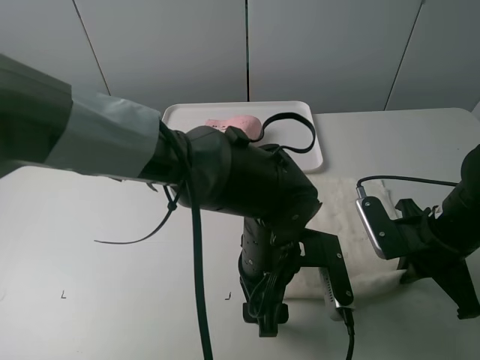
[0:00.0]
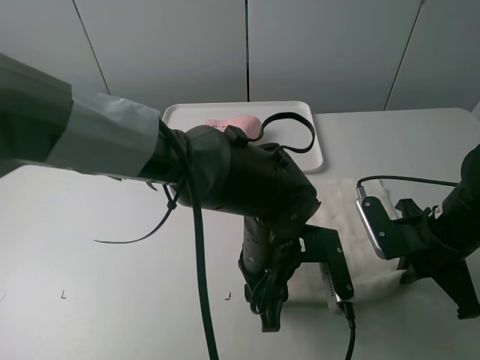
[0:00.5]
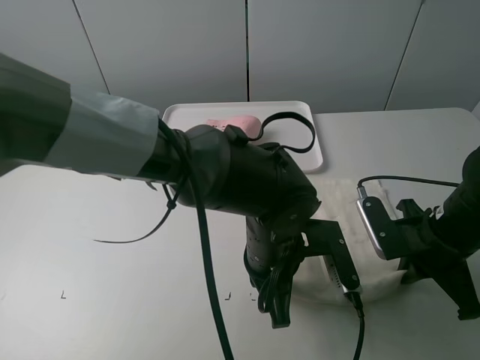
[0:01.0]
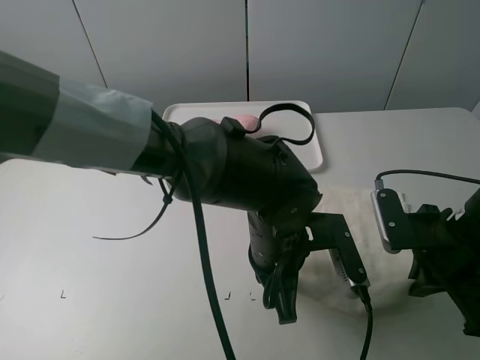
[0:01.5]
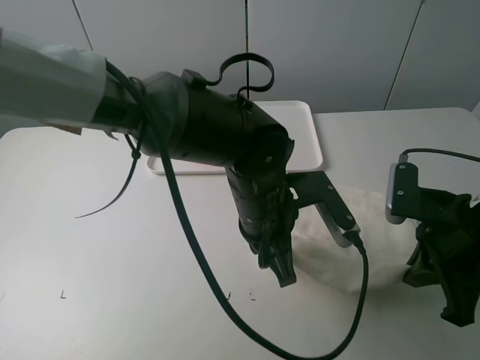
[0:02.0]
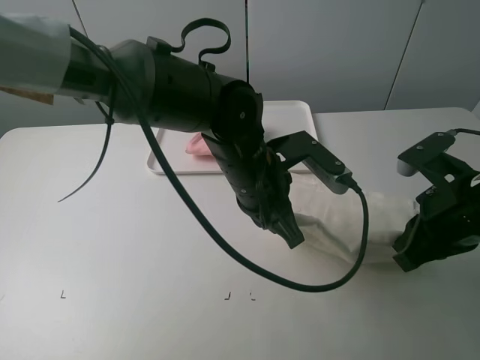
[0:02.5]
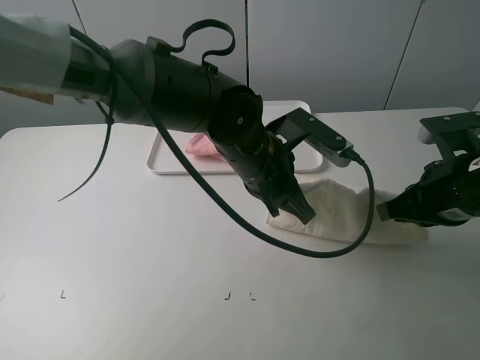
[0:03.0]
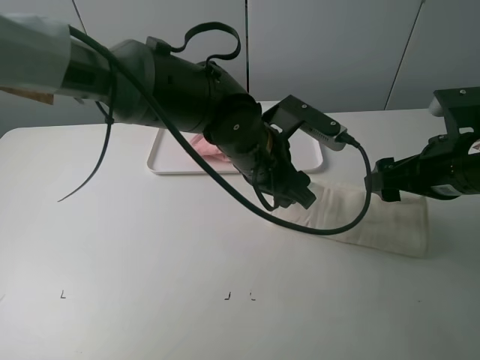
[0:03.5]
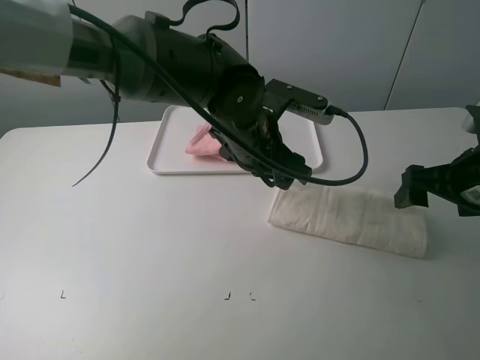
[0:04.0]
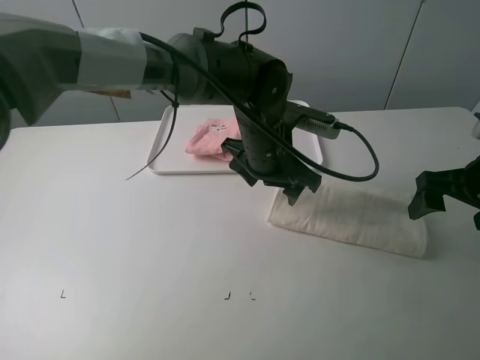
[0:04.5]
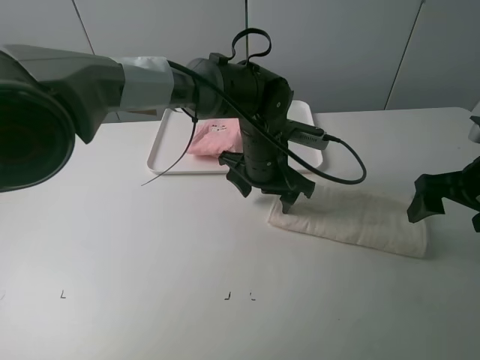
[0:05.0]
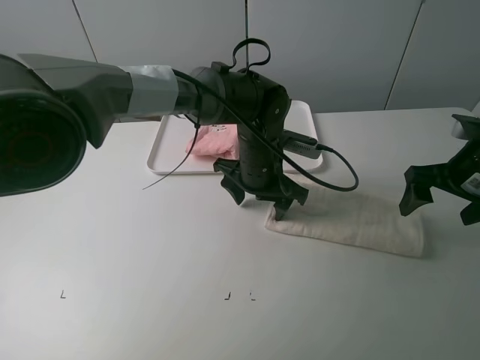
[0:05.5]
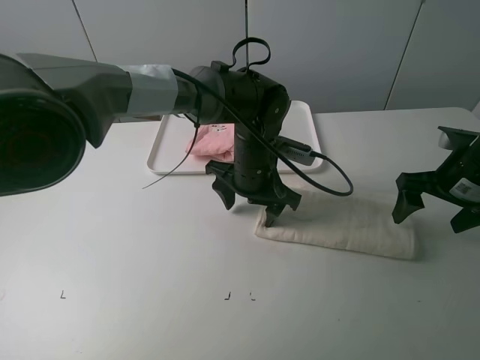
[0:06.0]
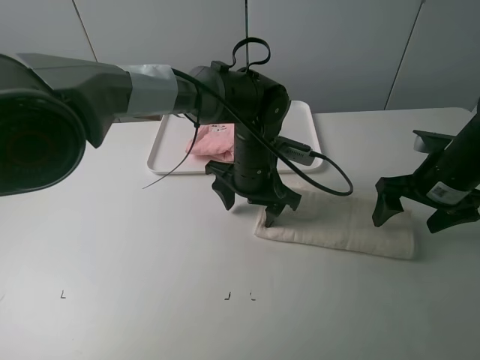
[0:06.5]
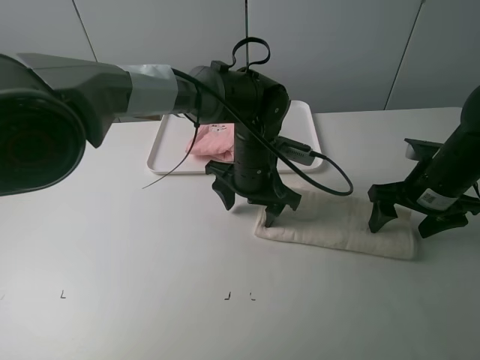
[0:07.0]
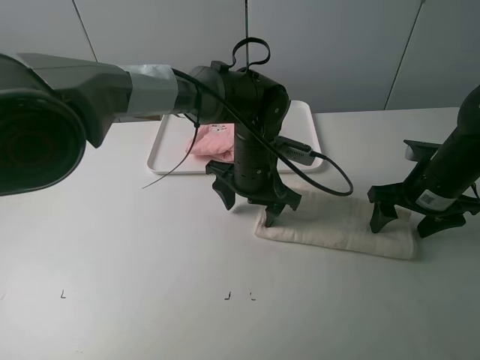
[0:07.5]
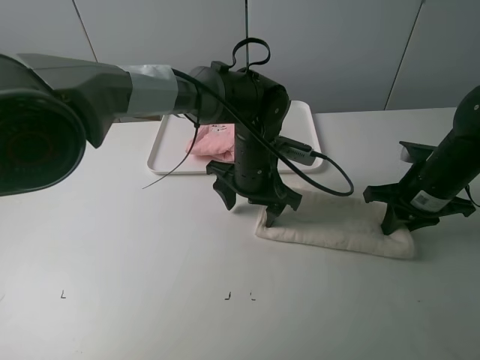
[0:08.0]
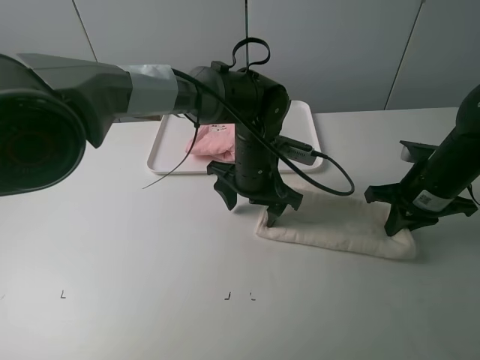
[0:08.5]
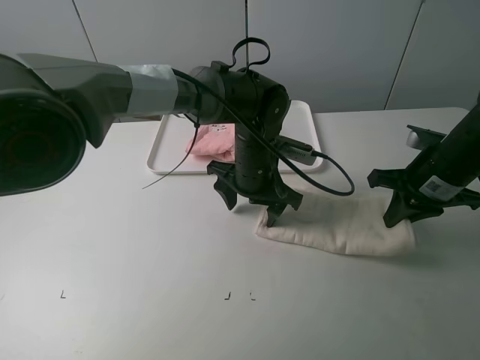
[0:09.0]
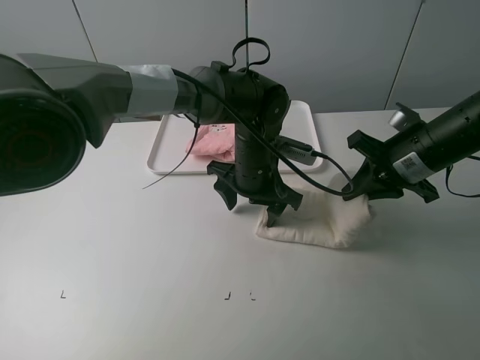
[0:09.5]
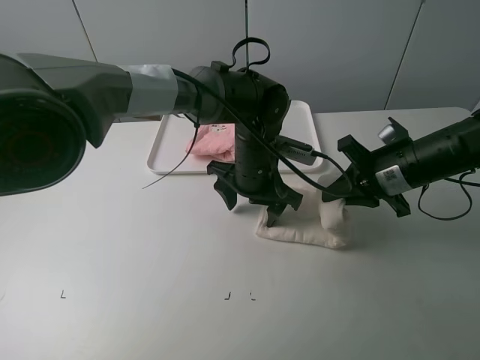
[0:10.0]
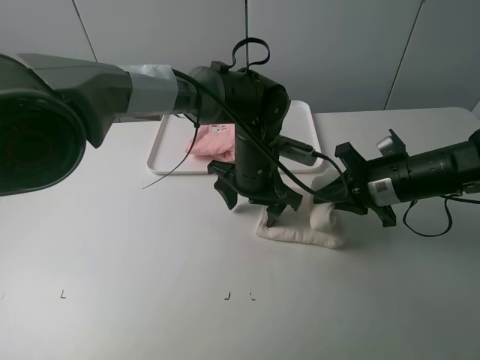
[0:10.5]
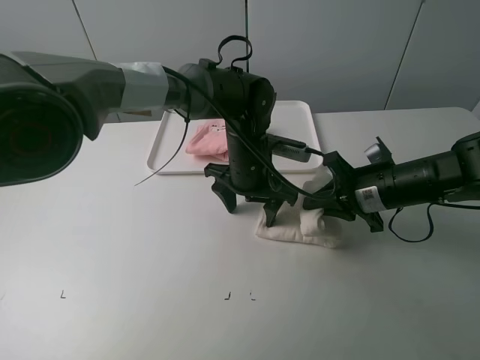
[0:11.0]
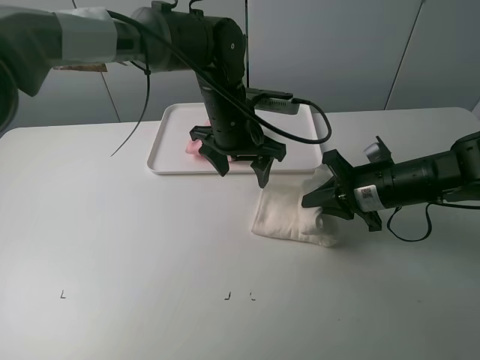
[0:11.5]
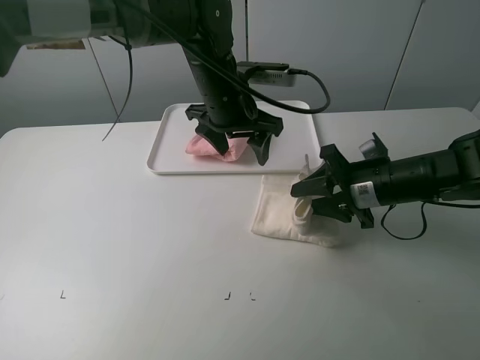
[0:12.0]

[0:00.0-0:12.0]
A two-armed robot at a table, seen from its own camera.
Task of the whole recording: fold one of the towels by two grippers and place it on the tray,then fold another towel by two grippers and place it on the folded towel.
Step, 0:01.0 to 0:03.5: Fold the white towel upwards with the left gripper.
Step, 0:04.0 to 0:05.0: Press the white towel with the left gripper.
Step, 0:05.5 to 0:08.0: Grasp the white towel with the right gripper.
0:00.0 to 0:02.0: The left gripper ends up some 5 cm from where it was, and closes, while the right gripper heads upward, covering roughly 5 cm.
0:02.0 to 0:04.0: The two grippers go approximately 5 cm forward. The left gripper opens. Meanwhile the right gripper opens up.
0:04.0 to 0:06.0: The right gripper changes place by about 5 cm, while the left gripper is displaced downward by roughly 5 cm.
0:06.0 to 0:08.0: The right gripper closes up.
0:08.0 to 0:10.0: The right gripper changes place by roughly 5 cm.
0:10.0 to 0:12.0: The left gripper moves upward, approximately 10 cm, while the right gripper opens.

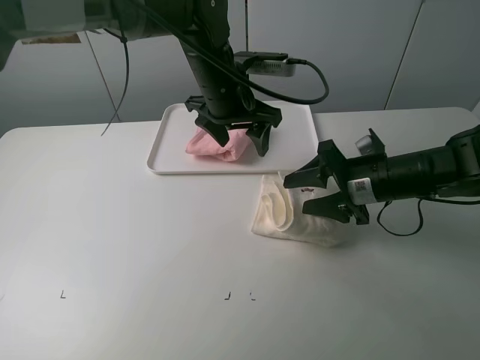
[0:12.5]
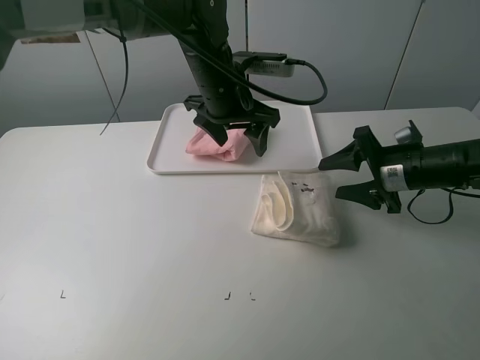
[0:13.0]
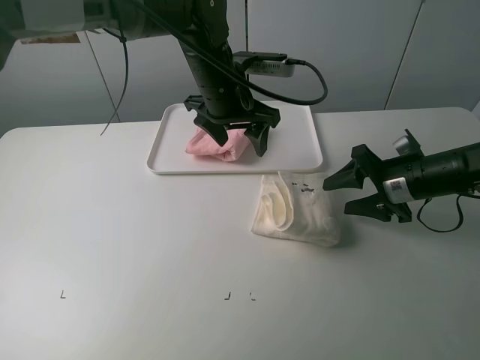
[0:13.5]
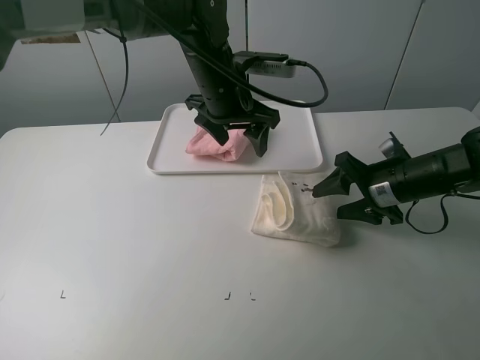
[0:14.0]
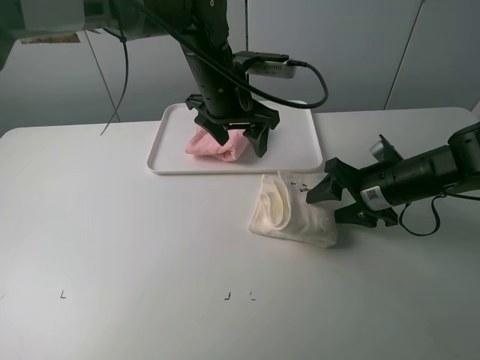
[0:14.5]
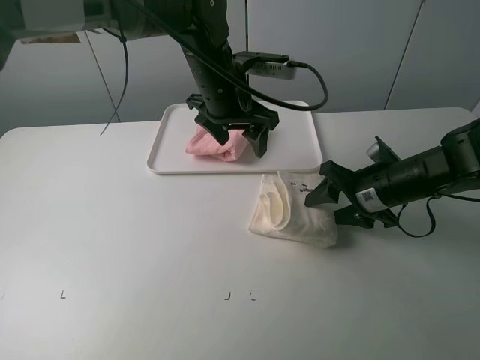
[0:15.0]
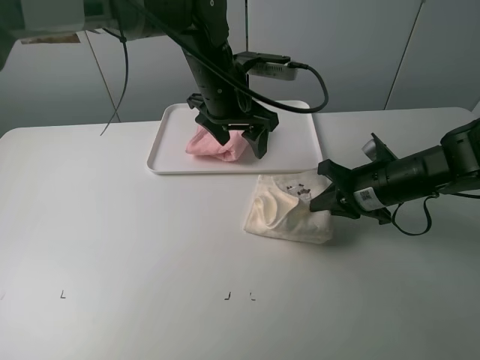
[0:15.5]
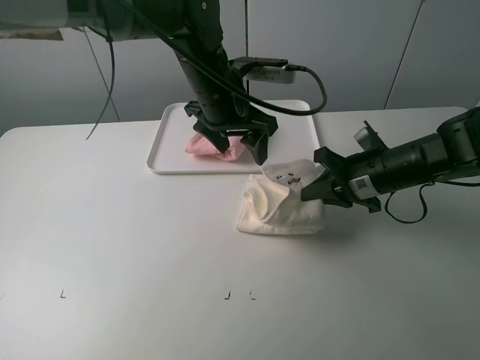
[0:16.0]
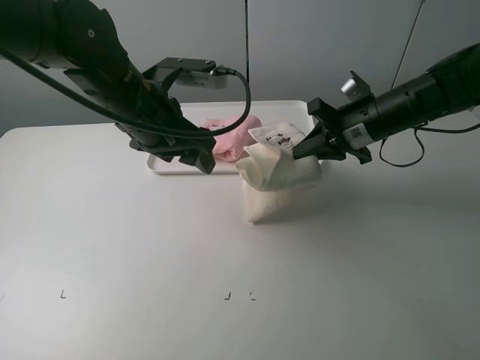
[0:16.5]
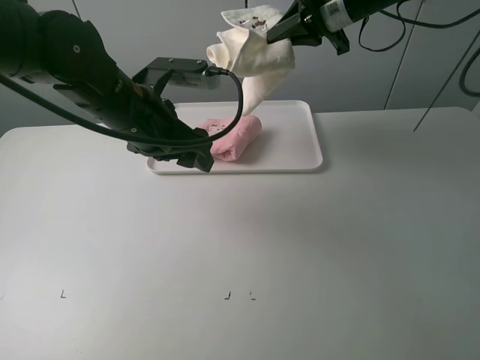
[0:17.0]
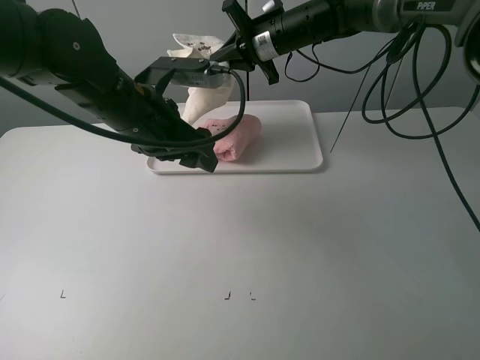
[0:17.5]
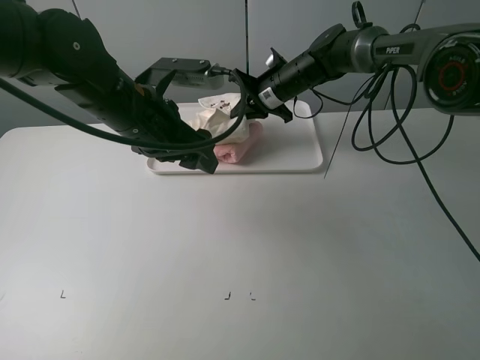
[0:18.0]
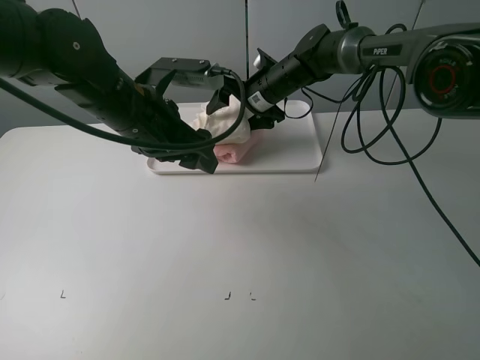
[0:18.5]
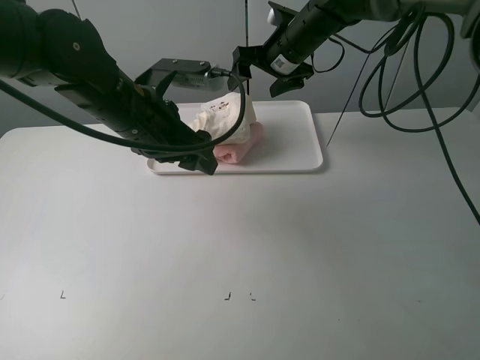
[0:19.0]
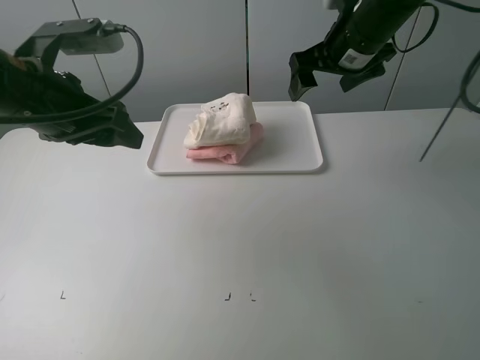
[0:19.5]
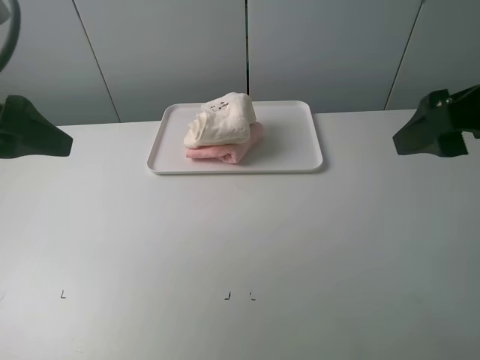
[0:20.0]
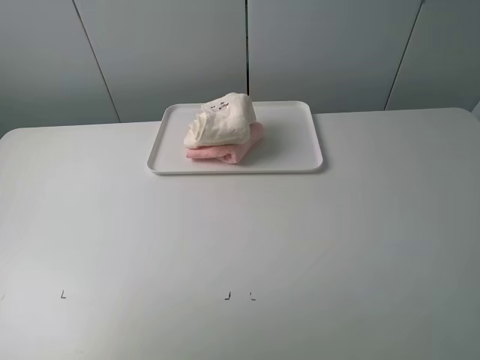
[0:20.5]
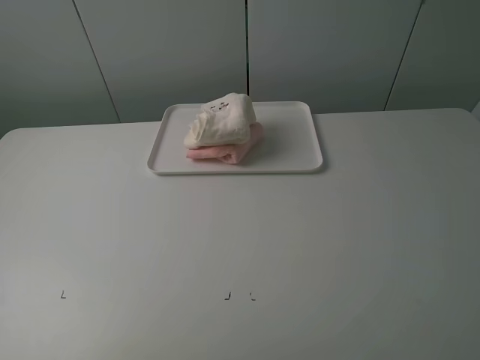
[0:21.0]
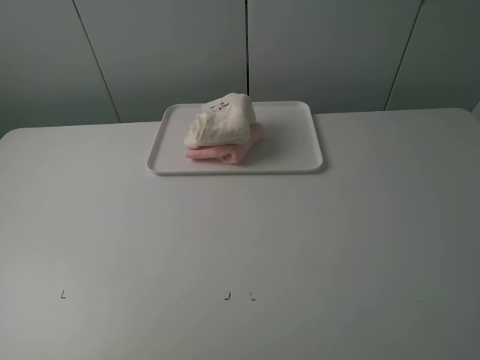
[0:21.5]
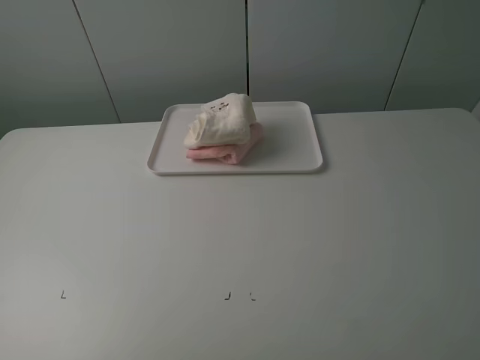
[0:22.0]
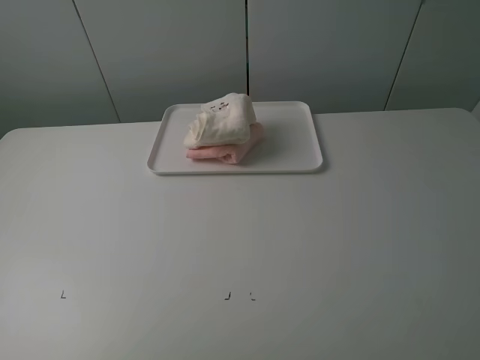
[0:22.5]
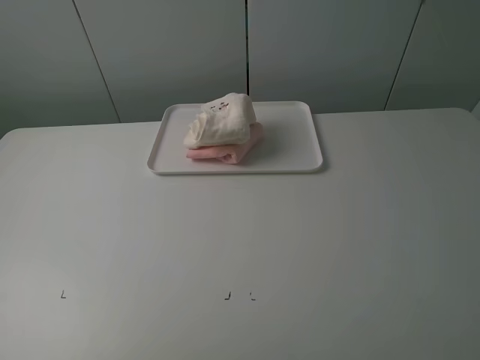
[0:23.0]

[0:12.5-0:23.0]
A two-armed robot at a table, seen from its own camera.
Task of the whole recording: fold one of the towels by two grippers and place it on the tray,then fold another towel by two grippers and place it on the folded towel.
Step, 0:13.0 to 0:15.0: Grasp the white towel with the right gripper.
Step, 0:15.5 to 0:18.5: Place the white towel on the pink towel with the right gripper.
0:12.5 to 0:14.5: The grippers make only small movements.
0:14.5 to 0:16.5: The left gripper moves to the left and backward, some 15 cm. The right gripper shifts about 10 cm upward and forward, and closes.
0:16.5 to 0:19.0: The right gripper moves up and down over approximately 15 cm, changing direction 2 times, and opens.
0:19.0 to 0:21.0: The right gripper travels backward and to the right by approximately 50 cm. Meanwhile the left gripper is displaced backward and to the left by some 35 cm.

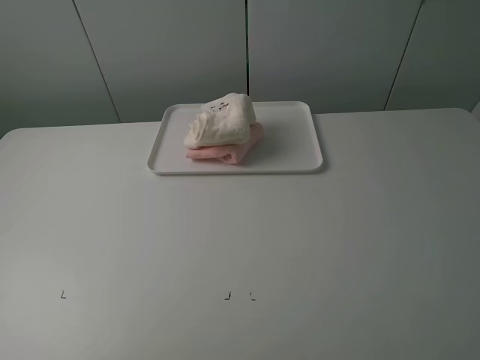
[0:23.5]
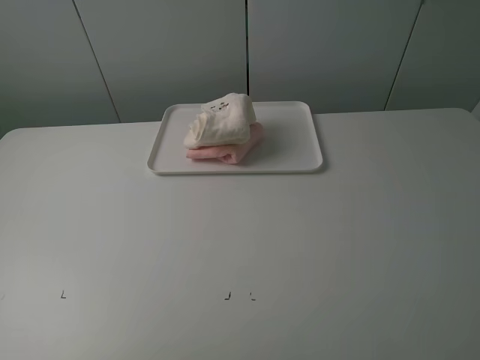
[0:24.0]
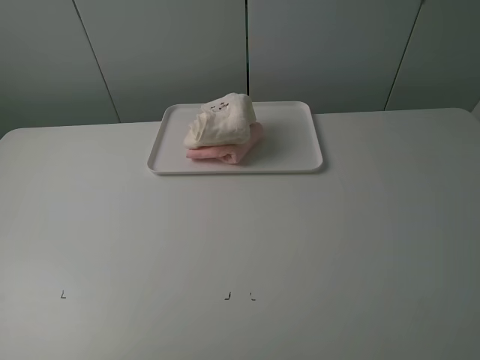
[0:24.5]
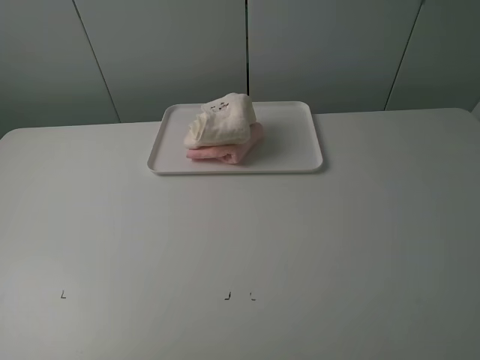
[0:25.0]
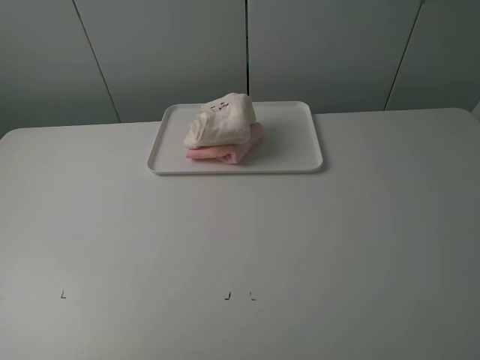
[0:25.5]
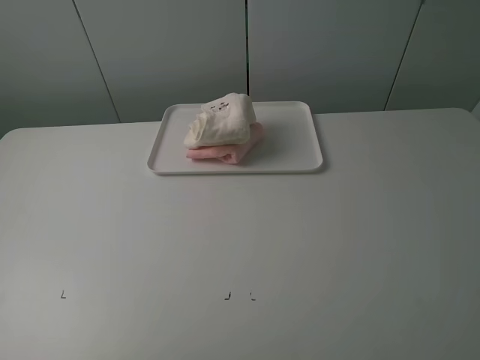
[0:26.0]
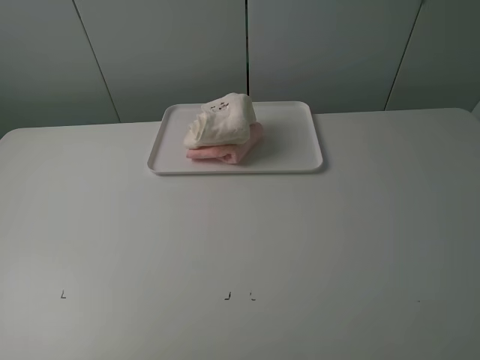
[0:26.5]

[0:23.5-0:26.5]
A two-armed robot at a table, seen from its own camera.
Task of the whole recording: fold one of the towels by two grippers and place it on the tray,then fold another towel by two grippers and place it on the folded towel.
0:23.5 to 0:26.5: Both grippers stay about where they are.
